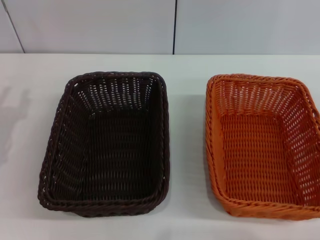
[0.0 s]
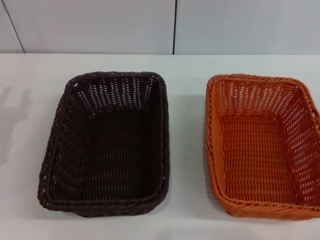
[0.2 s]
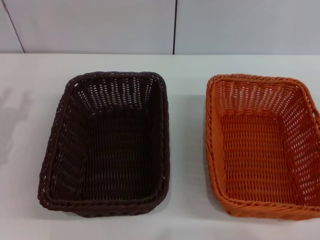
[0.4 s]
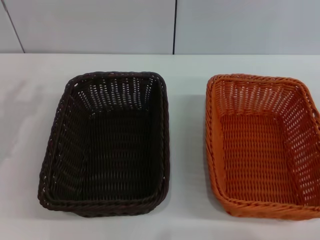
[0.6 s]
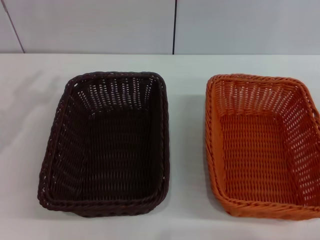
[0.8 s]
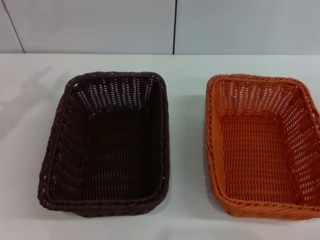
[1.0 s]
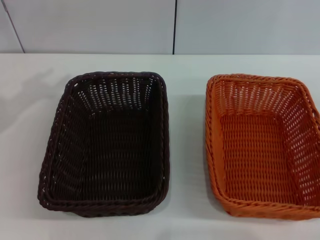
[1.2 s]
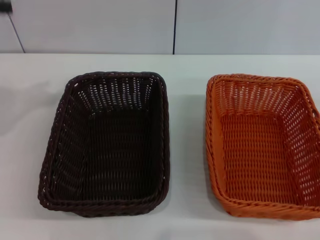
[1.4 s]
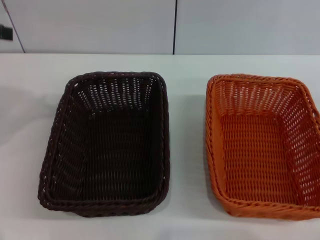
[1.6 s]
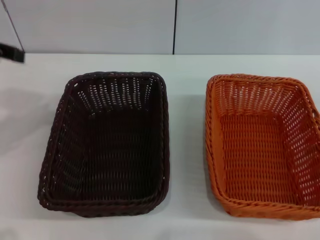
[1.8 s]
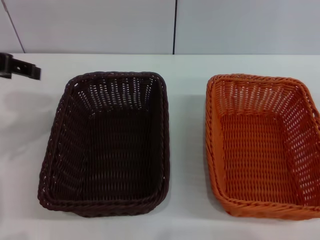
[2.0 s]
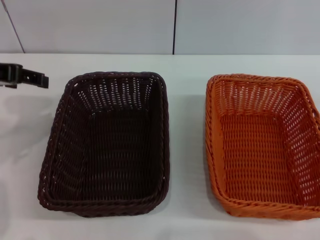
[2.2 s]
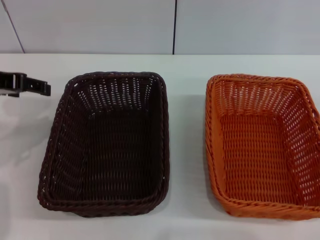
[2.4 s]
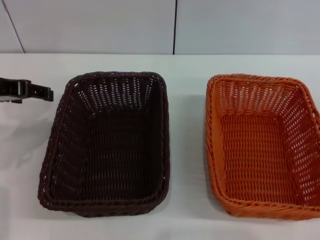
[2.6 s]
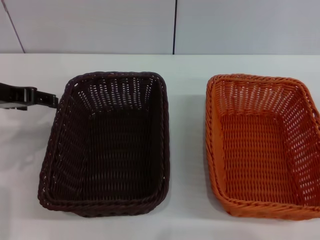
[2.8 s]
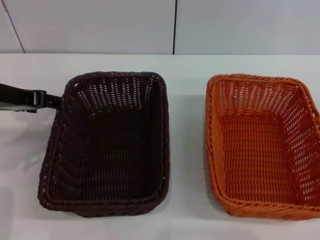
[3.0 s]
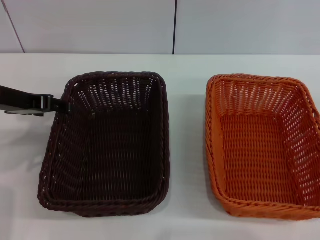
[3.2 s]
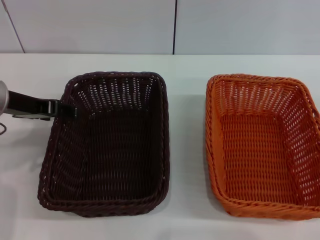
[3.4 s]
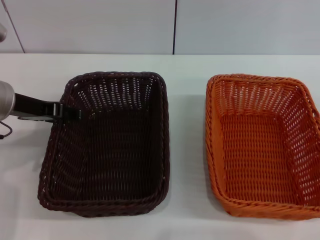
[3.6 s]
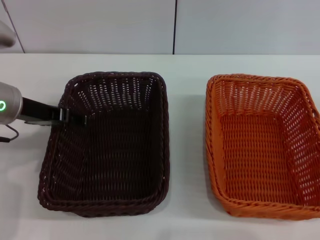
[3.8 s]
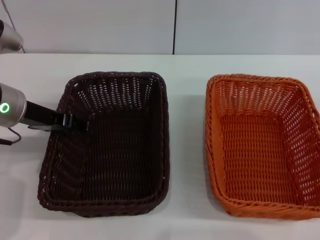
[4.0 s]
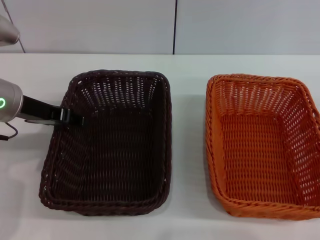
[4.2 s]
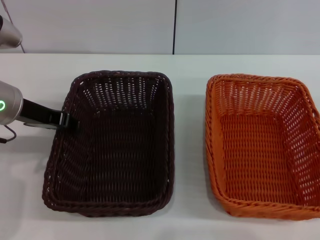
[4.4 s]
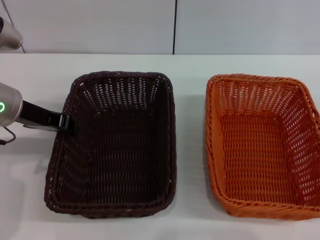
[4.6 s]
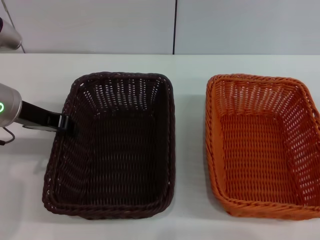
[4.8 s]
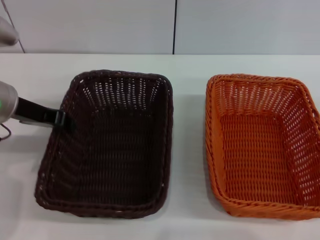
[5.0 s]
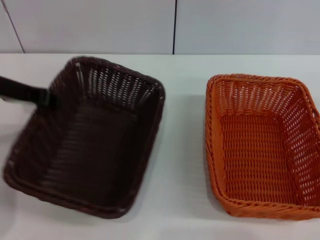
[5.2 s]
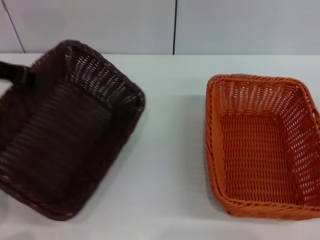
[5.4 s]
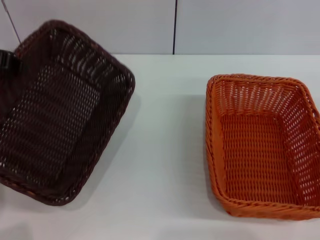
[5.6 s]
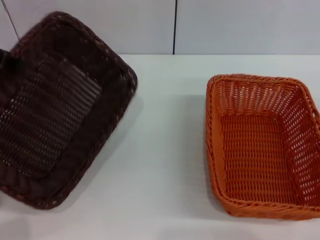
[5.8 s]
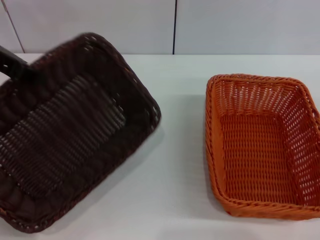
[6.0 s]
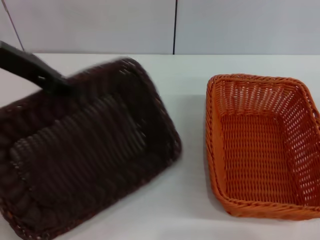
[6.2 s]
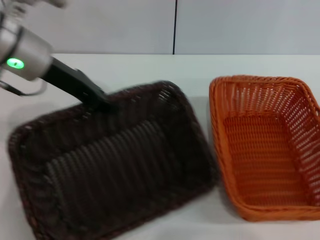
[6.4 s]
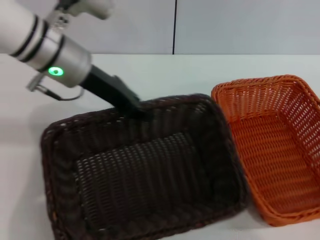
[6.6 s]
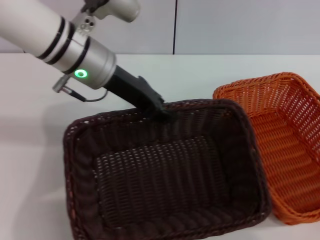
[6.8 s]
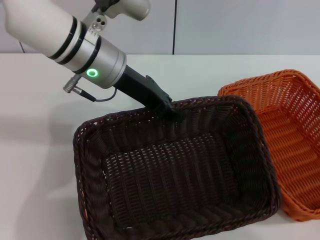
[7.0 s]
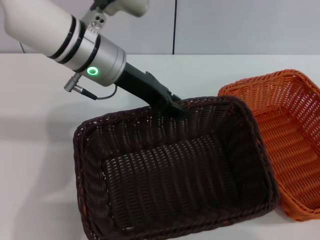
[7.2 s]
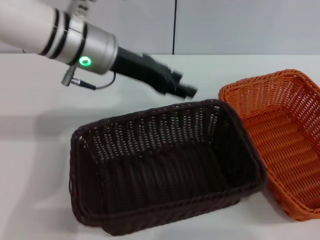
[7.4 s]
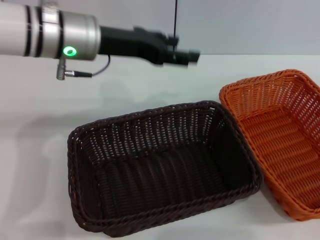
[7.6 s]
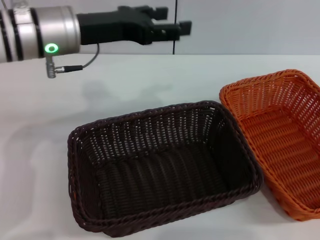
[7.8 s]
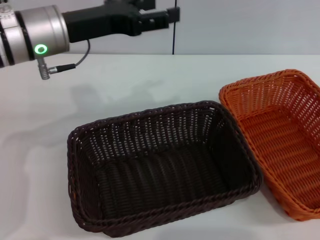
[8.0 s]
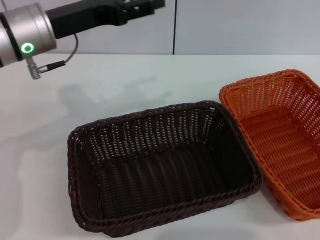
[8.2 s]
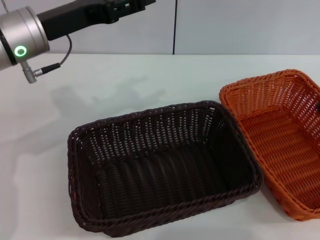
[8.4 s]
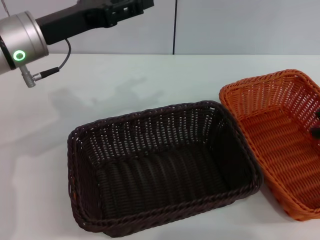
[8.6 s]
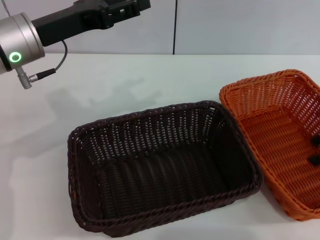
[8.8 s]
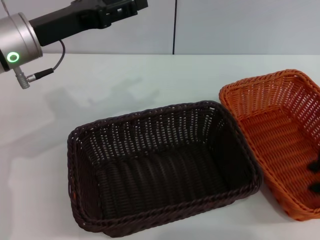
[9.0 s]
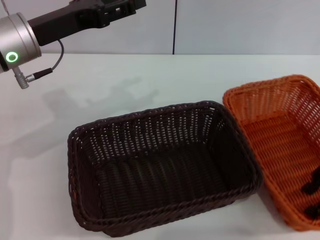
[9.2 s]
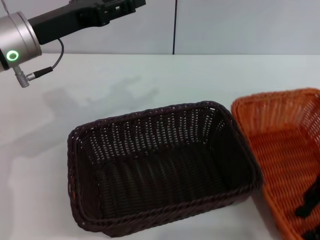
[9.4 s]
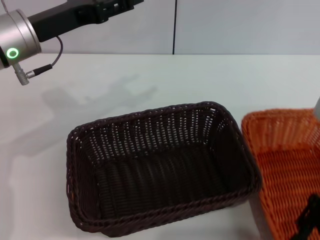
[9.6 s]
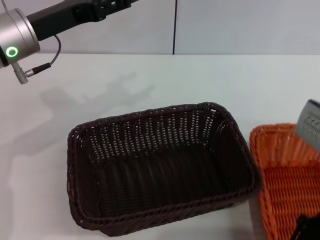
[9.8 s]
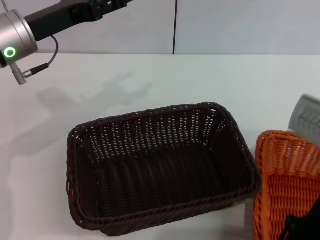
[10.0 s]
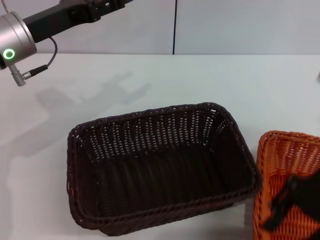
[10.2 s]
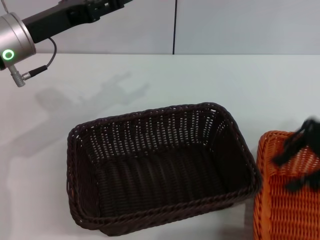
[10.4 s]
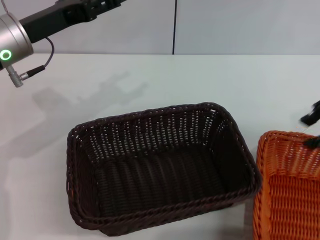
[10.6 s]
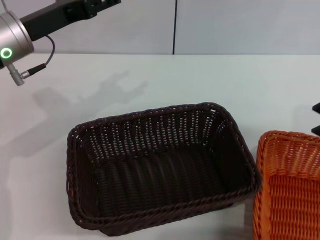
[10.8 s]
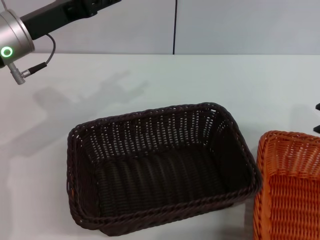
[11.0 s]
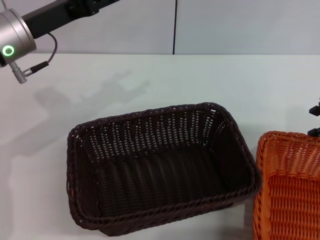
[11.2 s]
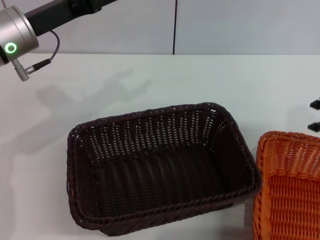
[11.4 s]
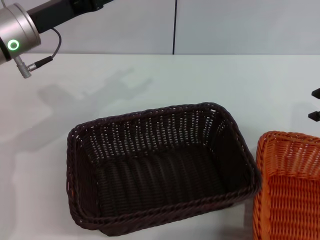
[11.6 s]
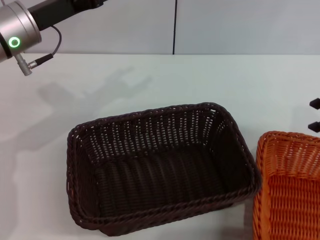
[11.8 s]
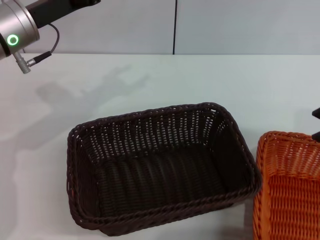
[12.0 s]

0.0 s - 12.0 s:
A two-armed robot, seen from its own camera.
Step, 0.0 s - 6.2 s: Pick up the dark basket with the left gripper.
Step, 6.4 s - 7.4 s: Place the light basket in the center of view with the left gripper.
0.0 s - 1.6 s: The left gripper moves upward, about 20 cm.
1.6 s - 3.0 s: The left gripper shifts about 10 cm downward and to the right.
3.0 s - 4.4 s: The left gripper closes its fingers.
4.4 s - 6.0 s: The left gripper goes about 10 cm upward, and closes up.
6.0 s - 7.6 s: The left gripper heads to the right and downward, covering roughly 15 cm, and opens up.
7.6 s - 9.0 s: The left gripper shifts approximately 5 cm to the left. Meanwhile the right gripper moves upward and to the left, about 15 cm.
9.0 s - 10.4 s: The right gripper goes roughly 5 cm upward.

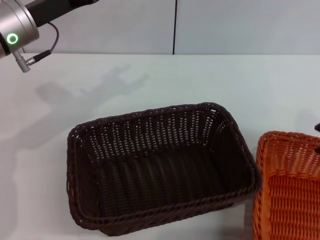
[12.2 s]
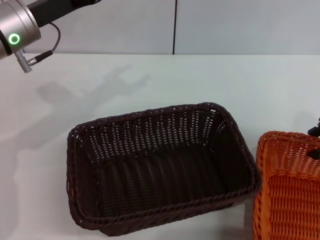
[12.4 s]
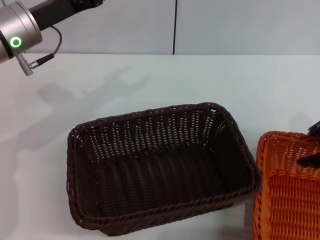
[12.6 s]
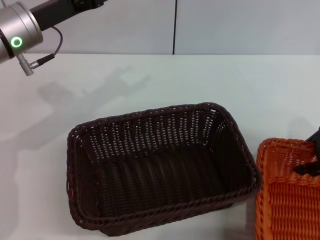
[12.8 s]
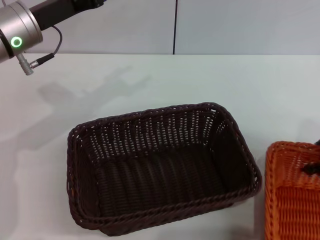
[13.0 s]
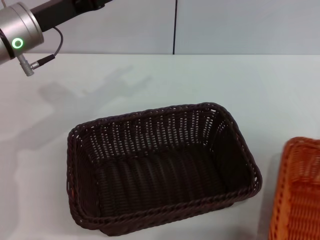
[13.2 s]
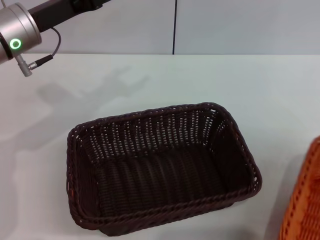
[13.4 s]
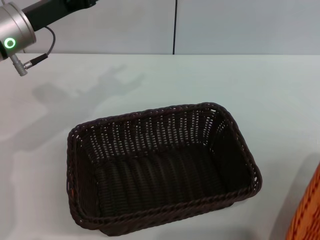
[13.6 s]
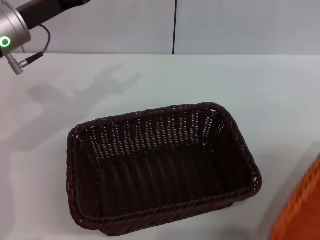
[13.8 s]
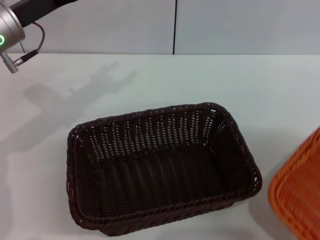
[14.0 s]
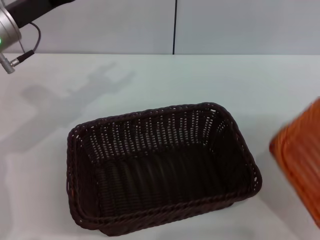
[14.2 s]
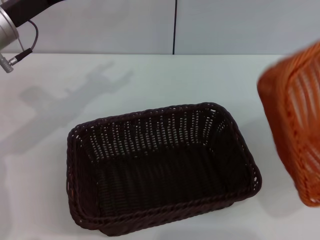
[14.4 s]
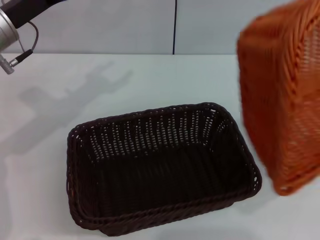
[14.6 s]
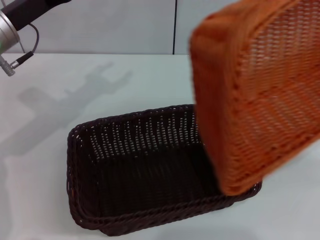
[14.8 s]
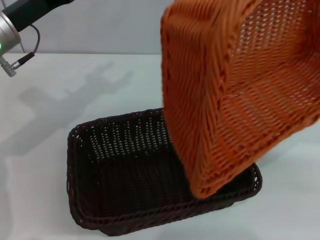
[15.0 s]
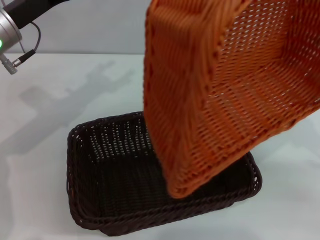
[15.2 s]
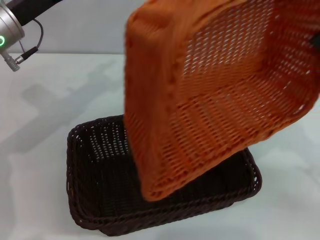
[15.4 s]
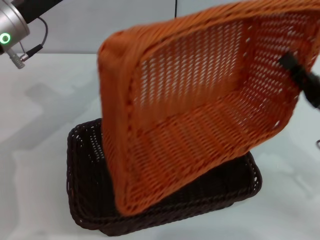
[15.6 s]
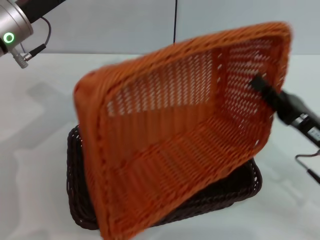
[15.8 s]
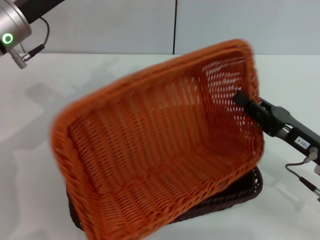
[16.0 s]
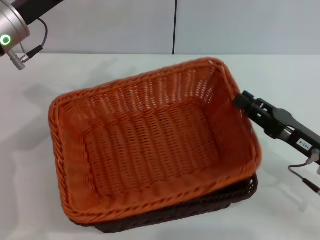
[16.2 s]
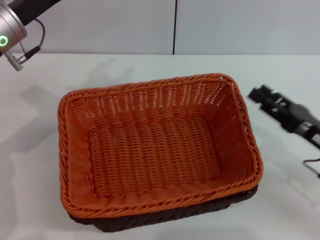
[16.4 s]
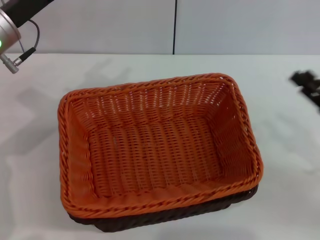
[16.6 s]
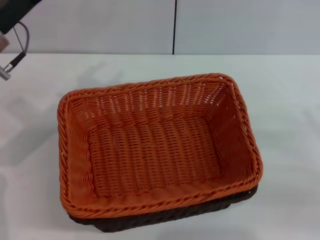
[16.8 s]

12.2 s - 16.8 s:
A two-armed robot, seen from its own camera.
Step, 12.2 s - 14.2 s: Pick up the light basket with the right gripper.
Step, 14.4 s - 16.2 s: Place the light basket on the dark basket with the right gripper.
12.2 s - 13.8 s: The right gripper travels to the right and backward by some 15 cm, and closes.
13.8 s - 15.2 s: The right gripper goes about 15 cm to the left and downward.
15.2 s - 16.8 s: The right gripper moves downward, roughly 5 cm, travels to the left and back again, about 5 cm each way, and opens.
